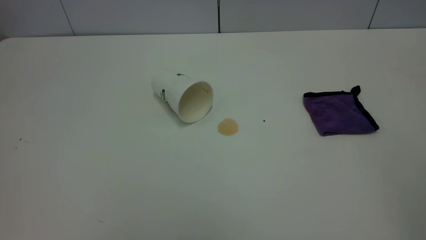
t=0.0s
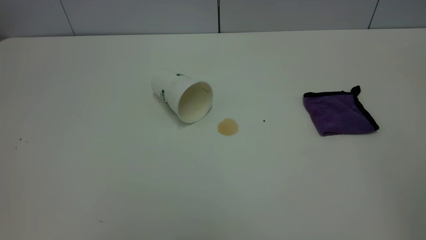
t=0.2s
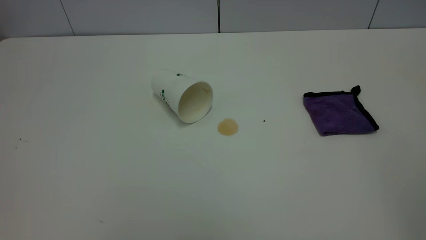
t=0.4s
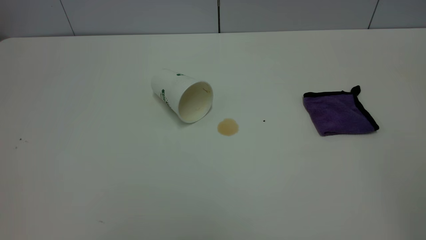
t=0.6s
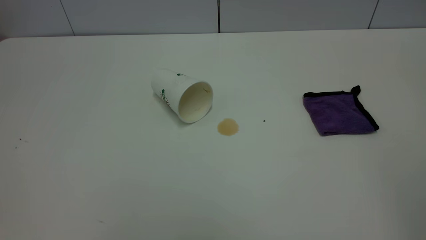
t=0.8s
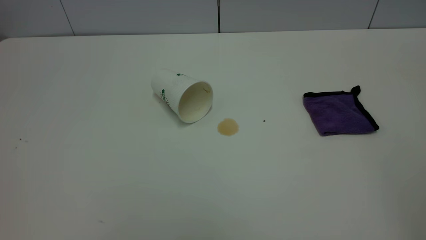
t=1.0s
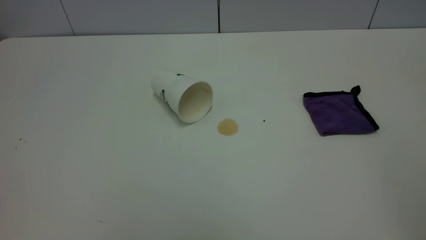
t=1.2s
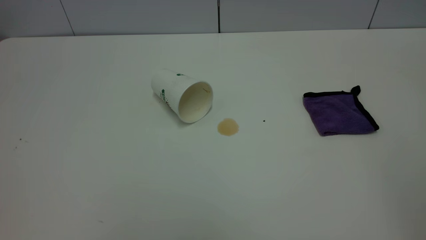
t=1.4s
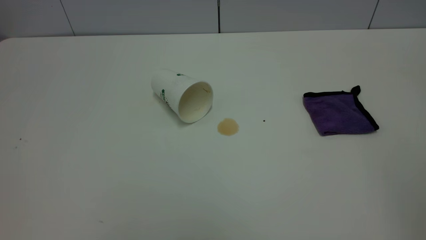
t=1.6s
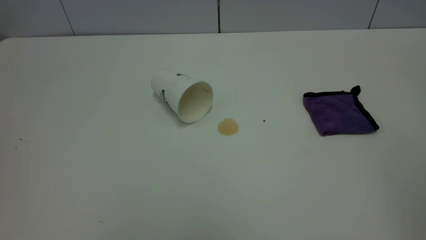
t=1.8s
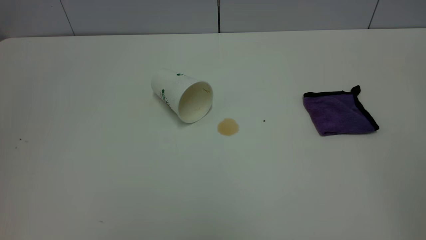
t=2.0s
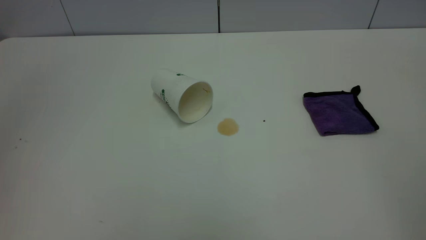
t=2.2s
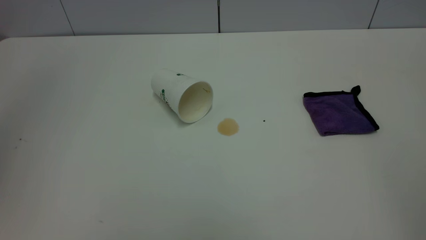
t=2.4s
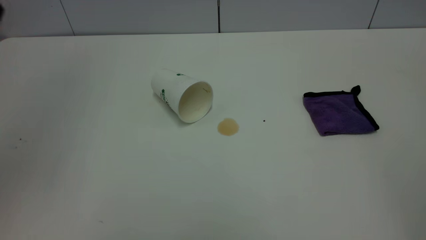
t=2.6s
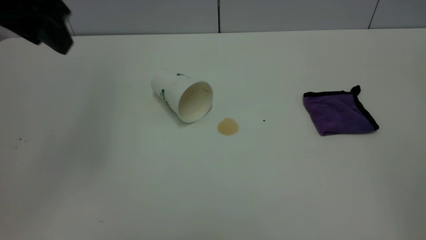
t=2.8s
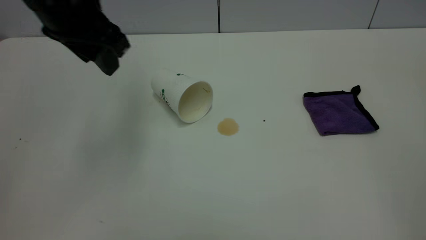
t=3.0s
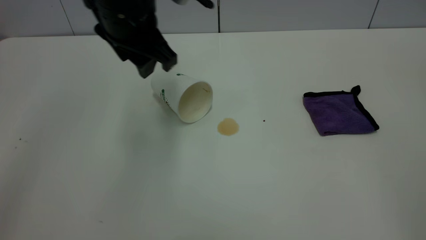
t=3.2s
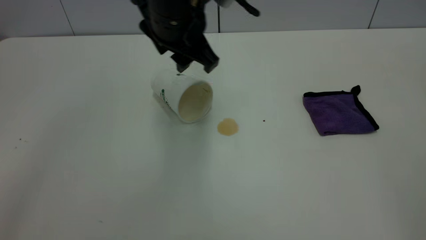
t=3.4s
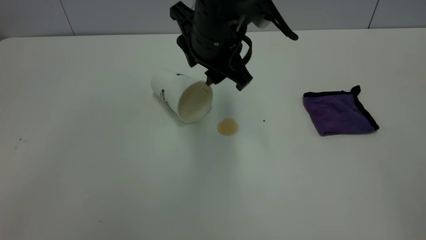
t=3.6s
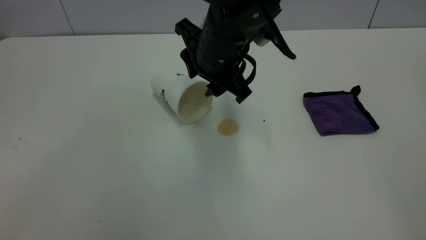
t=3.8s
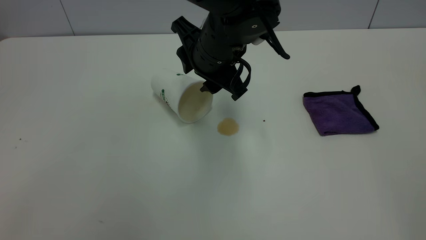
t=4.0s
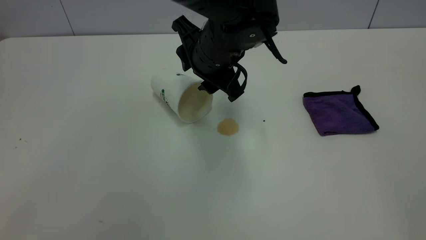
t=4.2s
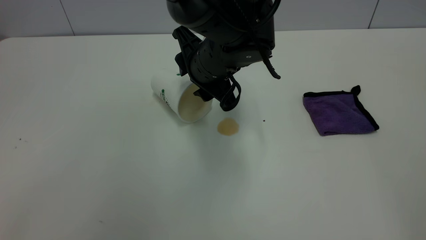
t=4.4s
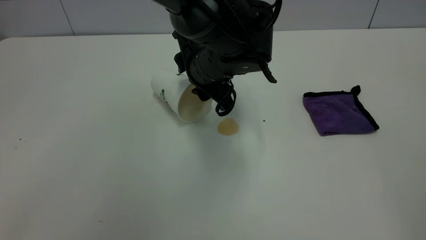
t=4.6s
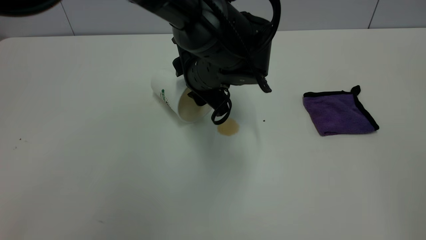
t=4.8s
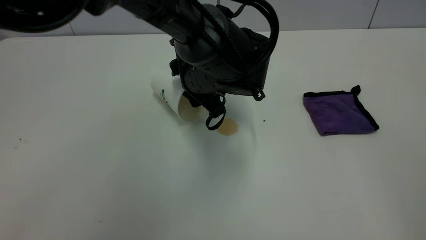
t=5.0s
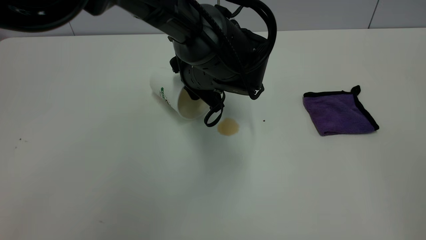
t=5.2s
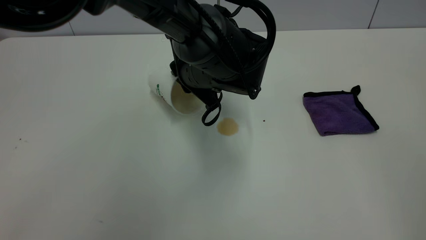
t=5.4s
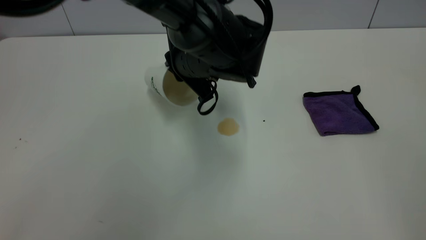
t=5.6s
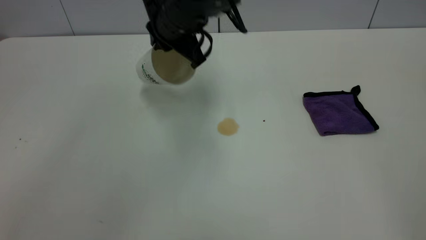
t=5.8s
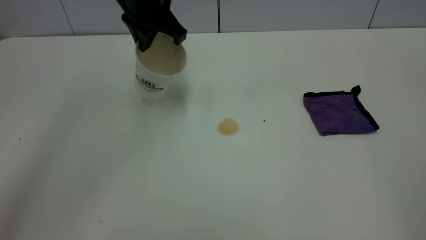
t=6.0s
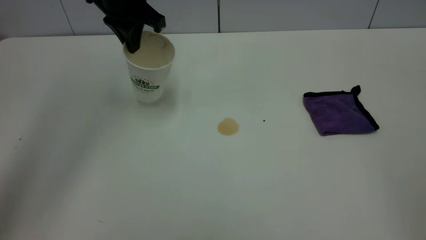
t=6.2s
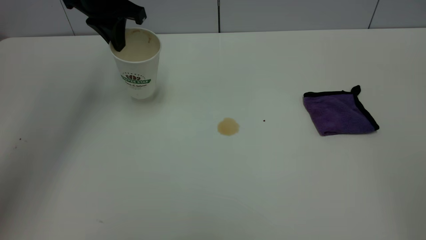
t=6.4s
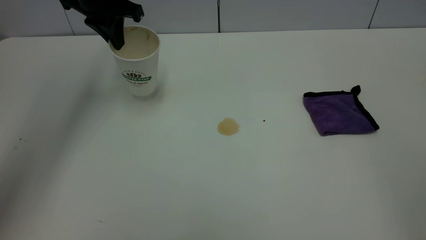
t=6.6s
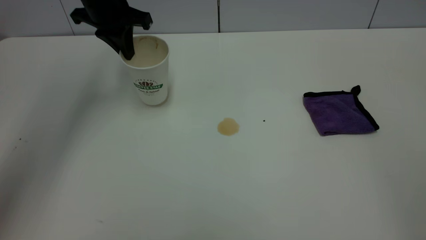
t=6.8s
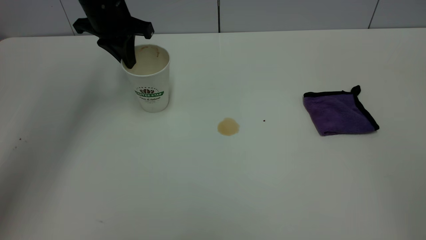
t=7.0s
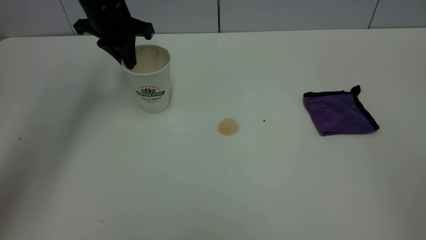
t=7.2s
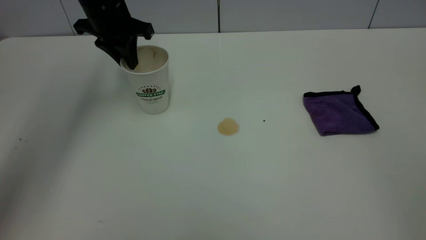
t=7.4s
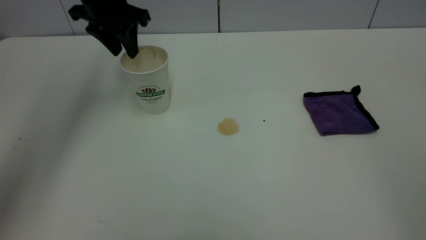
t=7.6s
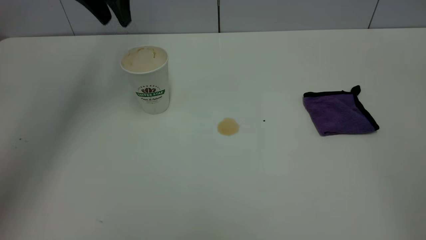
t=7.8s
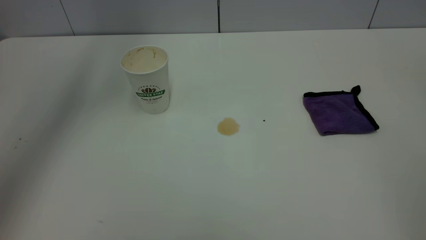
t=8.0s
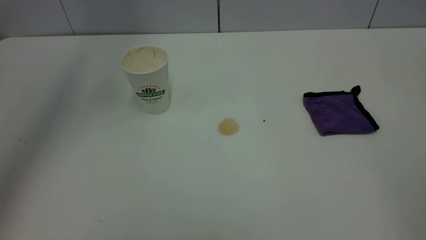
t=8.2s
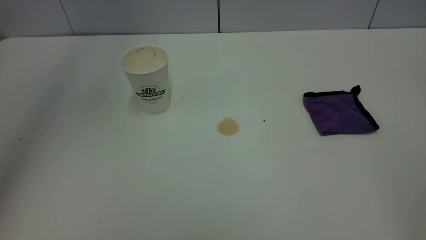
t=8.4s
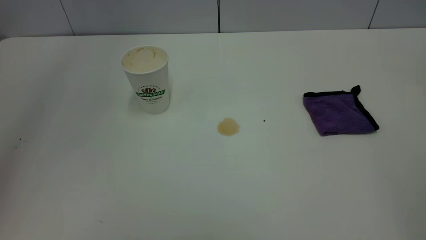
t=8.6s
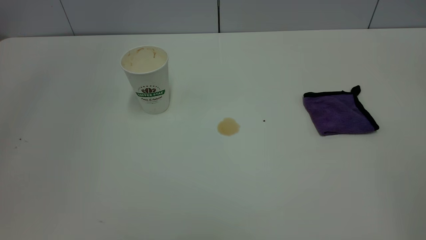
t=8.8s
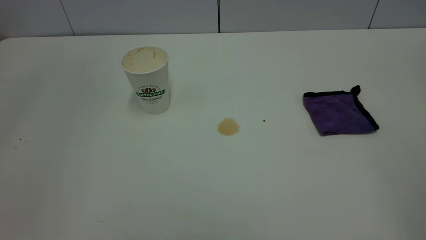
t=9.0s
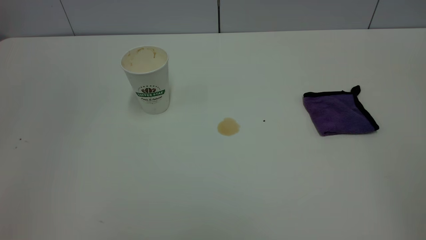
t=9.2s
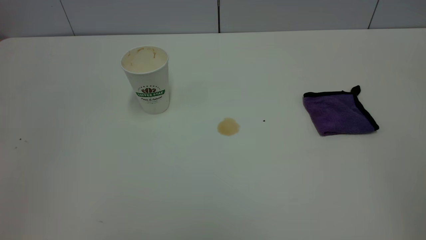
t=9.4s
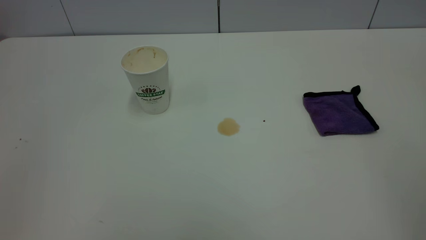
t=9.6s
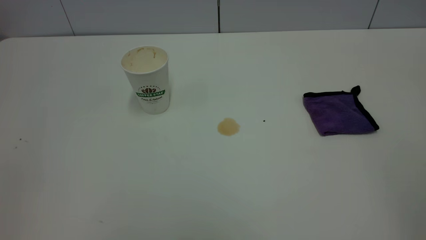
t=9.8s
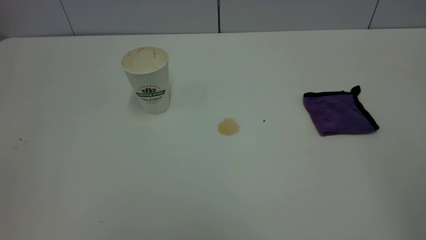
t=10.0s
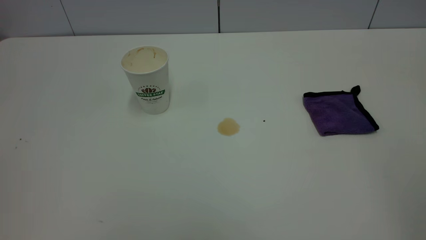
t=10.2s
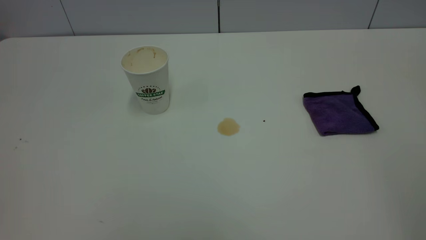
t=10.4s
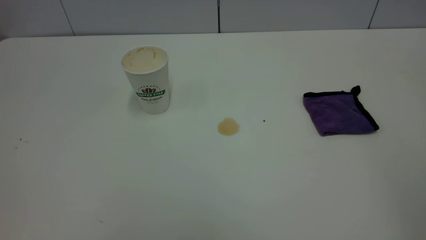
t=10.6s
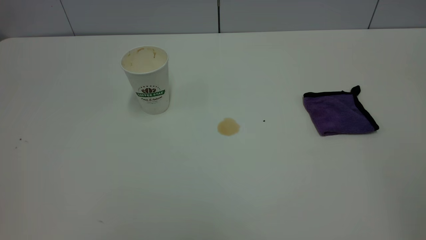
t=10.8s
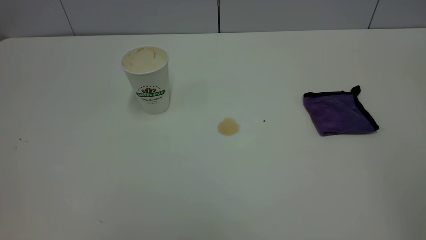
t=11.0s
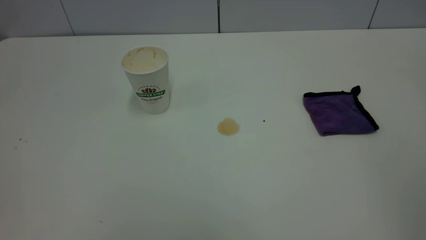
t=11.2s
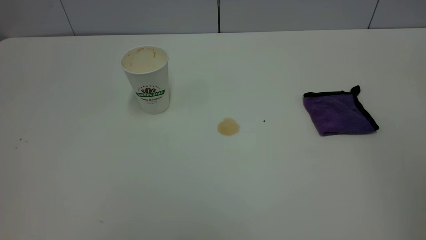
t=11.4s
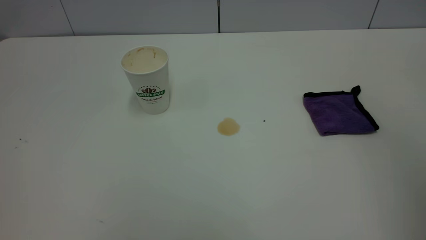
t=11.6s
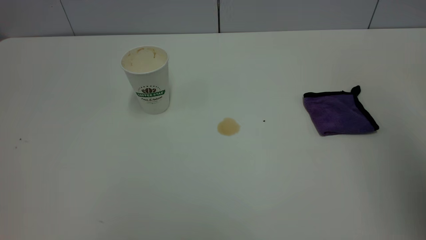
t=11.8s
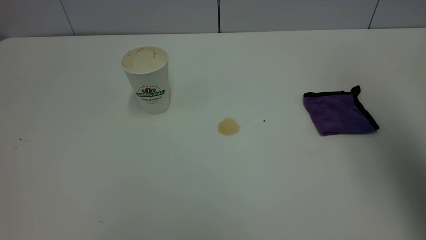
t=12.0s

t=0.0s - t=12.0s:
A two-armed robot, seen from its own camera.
Task of the whole recording: the left gripper pick up the fallen cup and place it upright, the right gripper grasp the purple rag and wipe the tea stain on the table, the right gripper put the purple rag back in its original position.
Step, t=0.0s - t=7.6s: Stand the paper cup upright.
t=0.0s - t=1.6s: Neither gripper changes place.
t=1.6s - t=3.0s: The left gripper moves forward and to the right, about 35 cm.
t=3.0s - t=4.4s: The left gripper heads to the right and downward, covering some 20 cm.
t=4.4s - t=6.0s: The left gripper goes roughly 15 cm to the left, upward and forward, and closes up.
t=6.0s - t=7.6s: The left gripper travels to the left by approximately 10 cm, and opens its fingers.
t=7.6s - t=9.0s: The left gripper goes roughly 40 cm backward and upward.
t=10.4s - t=12.0s: The right gripper goes some 25 cm forward.

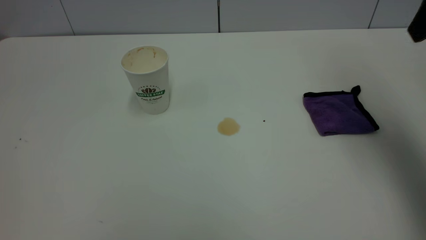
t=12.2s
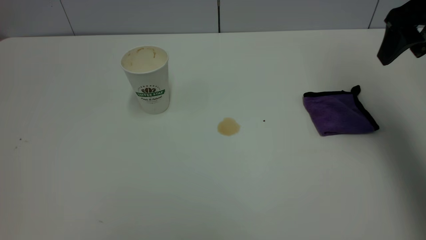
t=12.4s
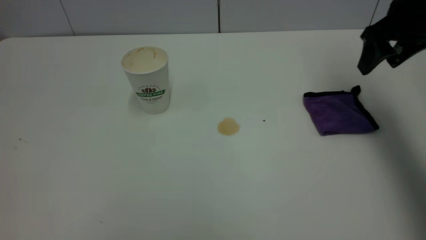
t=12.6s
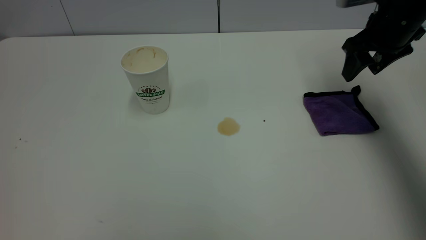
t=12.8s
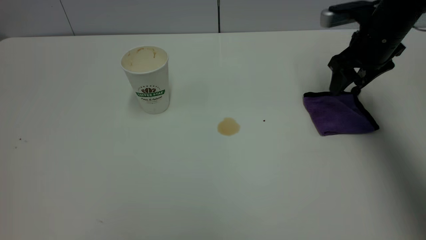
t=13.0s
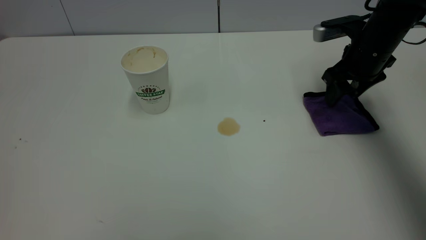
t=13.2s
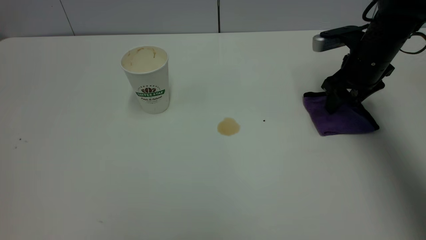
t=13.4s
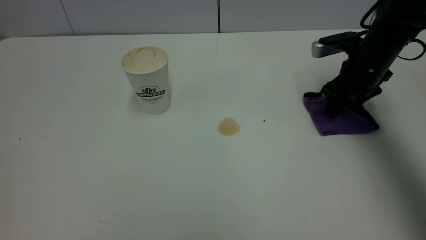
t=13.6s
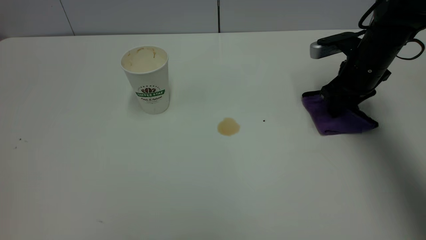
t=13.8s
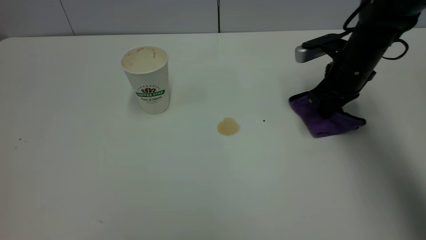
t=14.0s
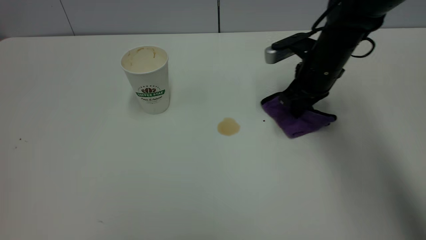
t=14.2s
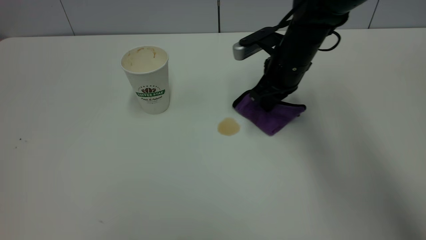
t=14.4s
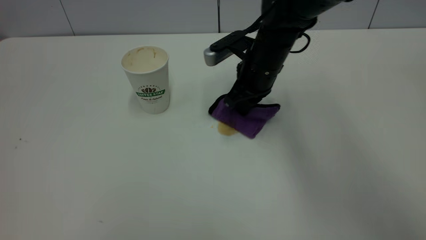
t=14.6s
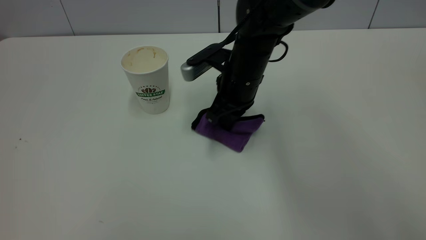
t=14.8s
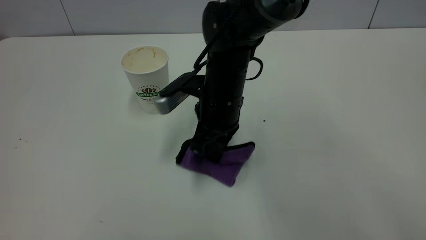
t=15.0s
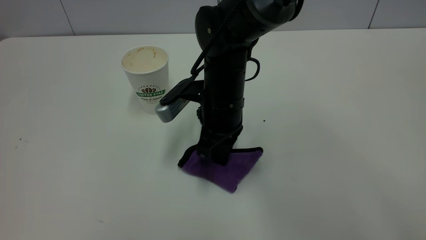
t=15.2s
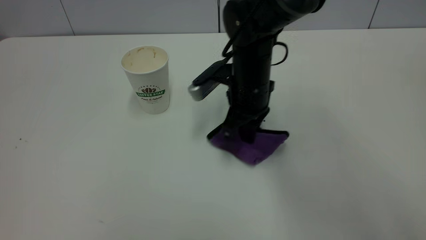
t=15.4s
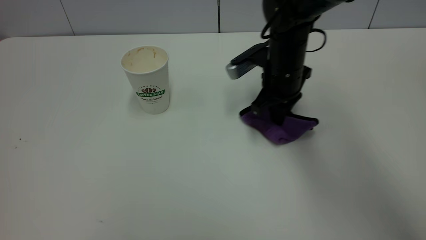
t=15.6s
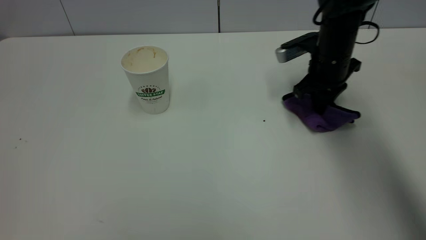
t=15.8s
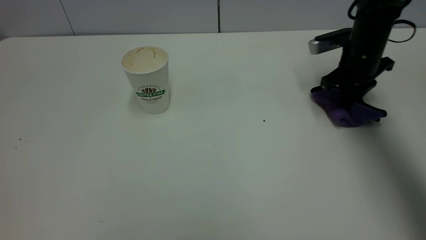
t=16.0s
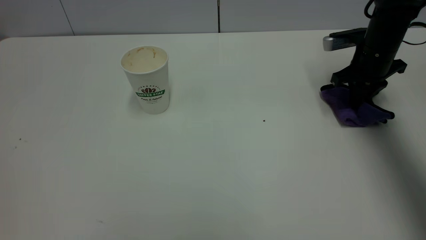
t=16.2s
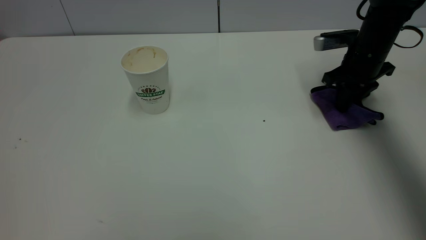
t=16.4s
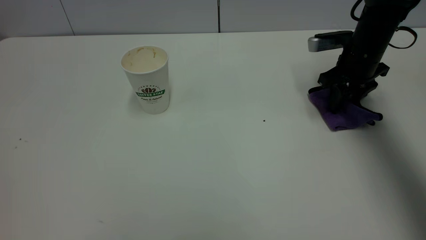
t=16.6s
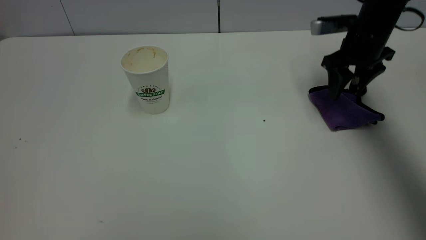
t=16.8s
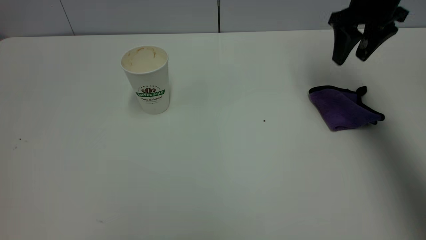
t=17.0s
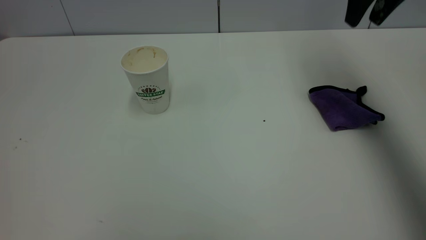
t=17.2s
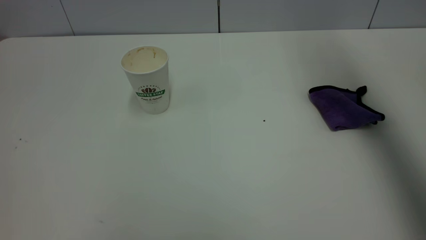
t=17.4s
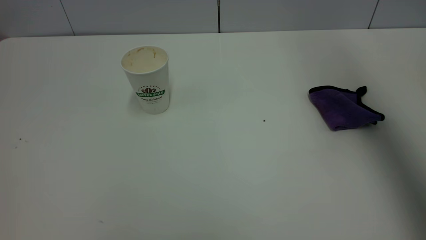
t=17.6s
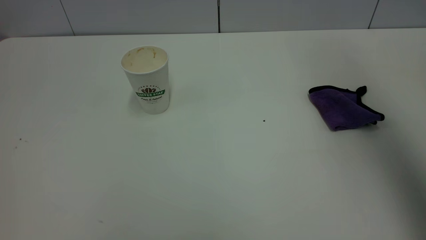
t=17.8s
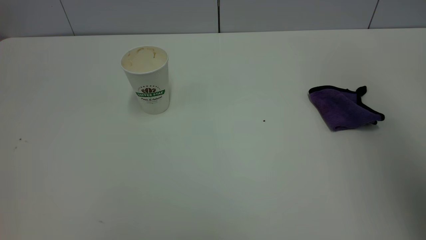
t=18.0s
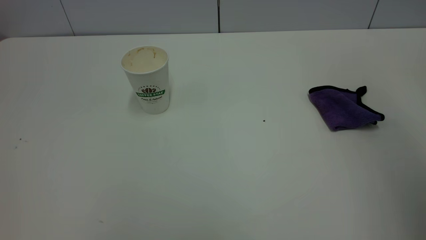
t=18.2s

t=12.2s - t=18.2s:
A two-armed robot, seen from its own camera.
Task of the whole recording: the left gripper pick up the fallen cup and place it upright, the right gripper grasp the purple rag and wipe the tea stain on the table, the right gripper put the purple rag back in its original position.
Step, t=12.2s - t=17.0s: Wipe the stains off the table with a rag.
t=12.2s - t=13.8s: The right gripper shifts roughly 25 cm downward and forward, and closes.
t=13.8s - t=15.2s: The right gripper moves to the left, roughly 25 cm.
t=15.2s - t=16.6s: The right gripper goes roughly 25 cm to the right and forward, and opens its fingers.
t=16.6s - t=18.2s: The right gripper shifts about 40 cm upward and backward.
